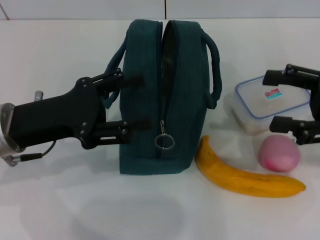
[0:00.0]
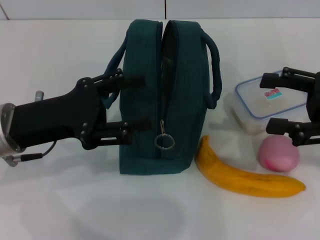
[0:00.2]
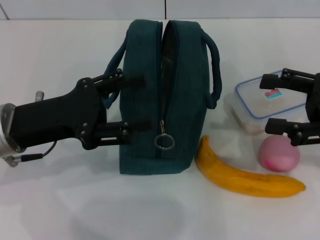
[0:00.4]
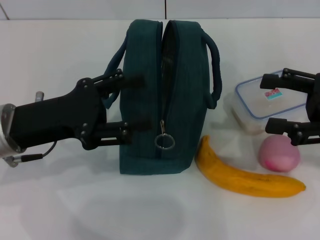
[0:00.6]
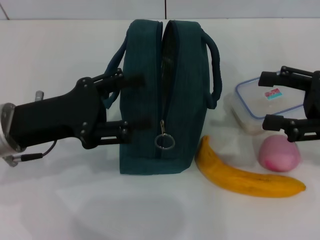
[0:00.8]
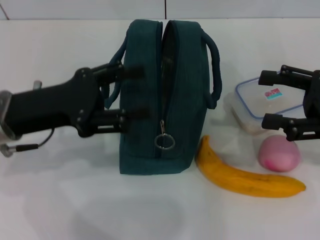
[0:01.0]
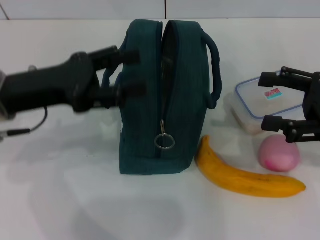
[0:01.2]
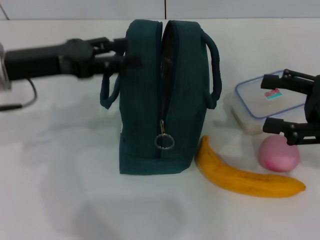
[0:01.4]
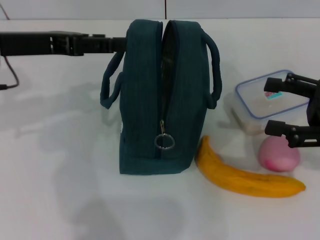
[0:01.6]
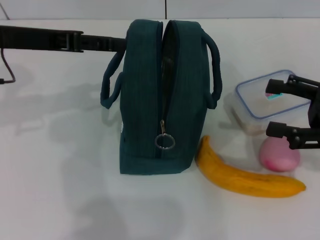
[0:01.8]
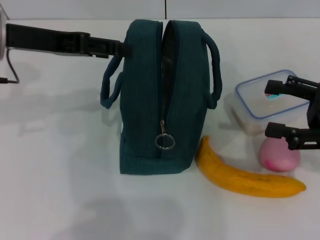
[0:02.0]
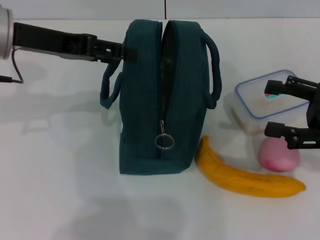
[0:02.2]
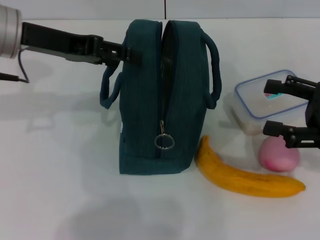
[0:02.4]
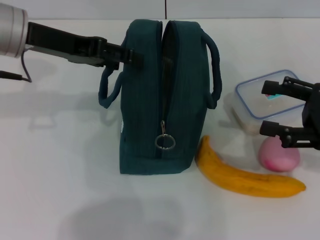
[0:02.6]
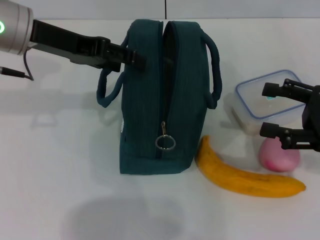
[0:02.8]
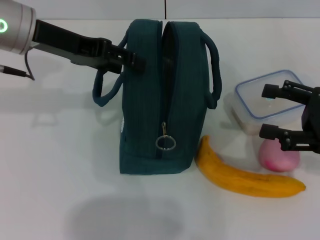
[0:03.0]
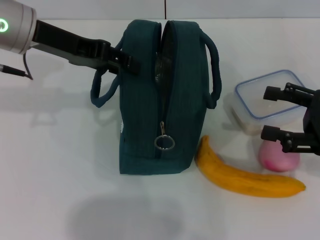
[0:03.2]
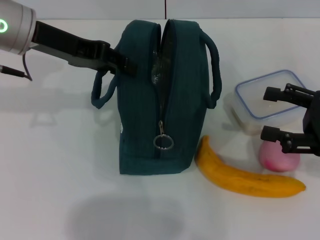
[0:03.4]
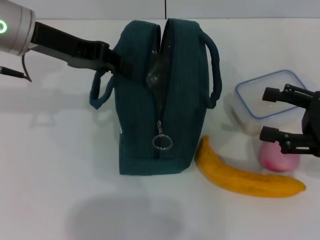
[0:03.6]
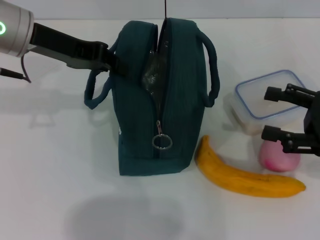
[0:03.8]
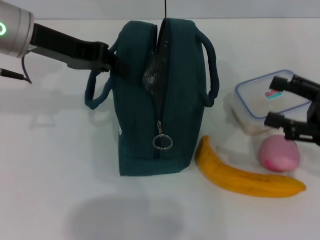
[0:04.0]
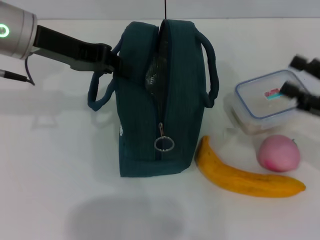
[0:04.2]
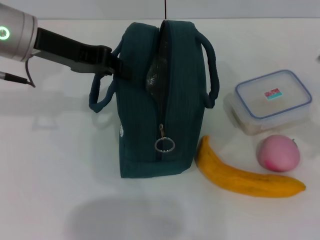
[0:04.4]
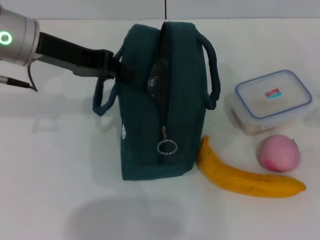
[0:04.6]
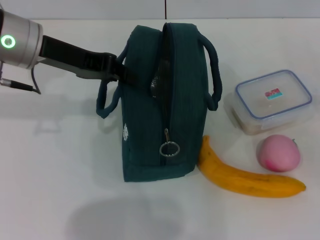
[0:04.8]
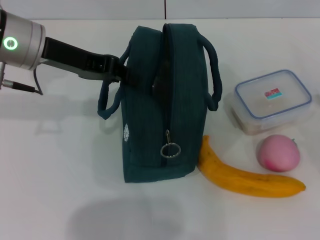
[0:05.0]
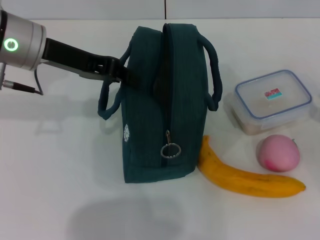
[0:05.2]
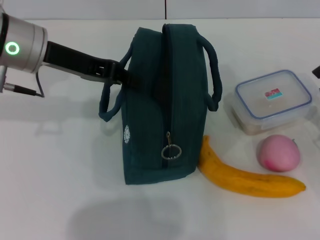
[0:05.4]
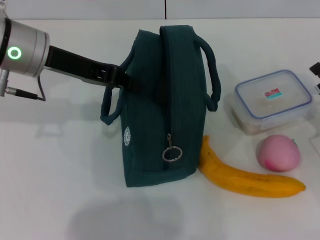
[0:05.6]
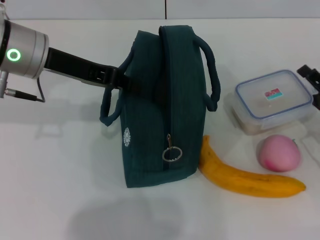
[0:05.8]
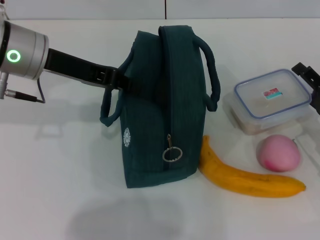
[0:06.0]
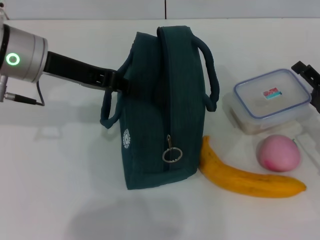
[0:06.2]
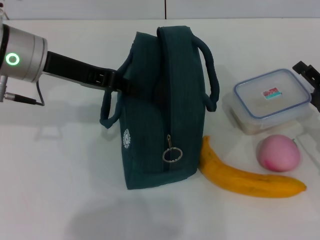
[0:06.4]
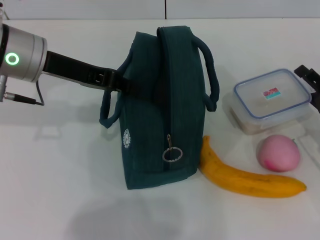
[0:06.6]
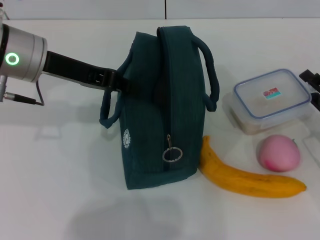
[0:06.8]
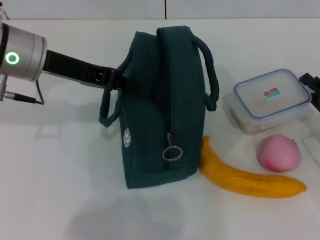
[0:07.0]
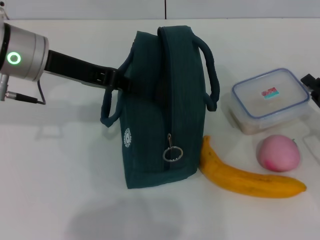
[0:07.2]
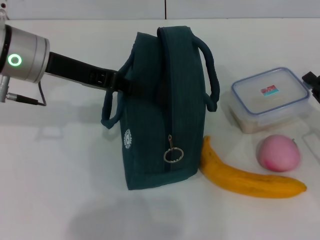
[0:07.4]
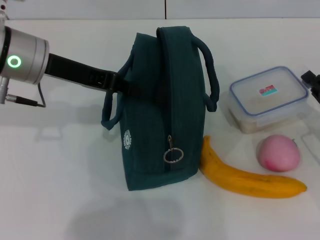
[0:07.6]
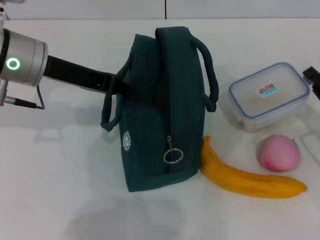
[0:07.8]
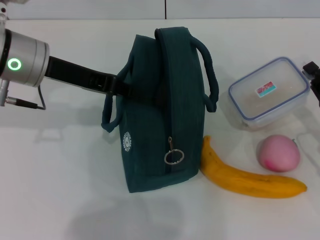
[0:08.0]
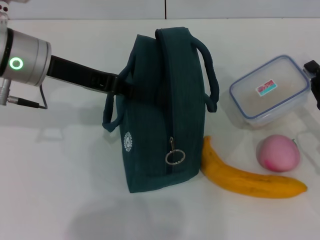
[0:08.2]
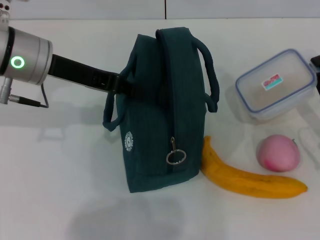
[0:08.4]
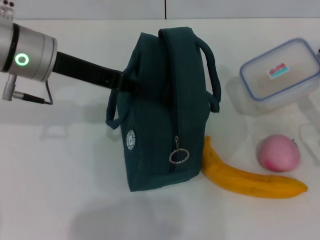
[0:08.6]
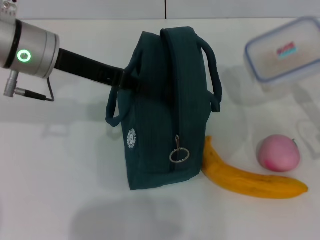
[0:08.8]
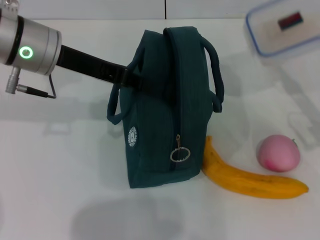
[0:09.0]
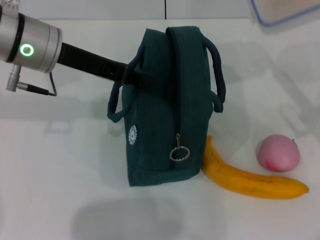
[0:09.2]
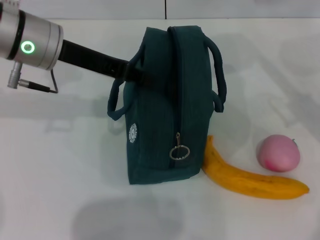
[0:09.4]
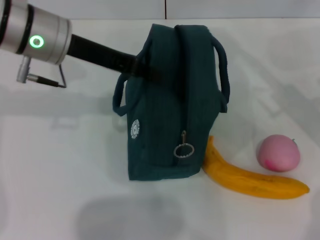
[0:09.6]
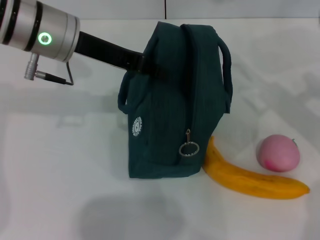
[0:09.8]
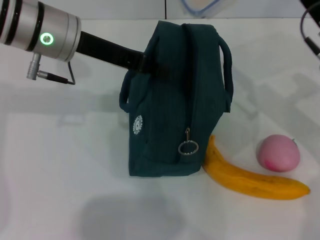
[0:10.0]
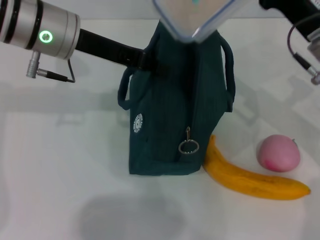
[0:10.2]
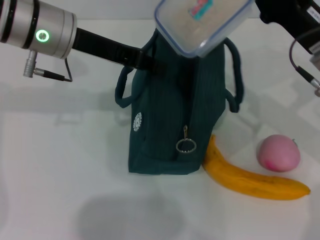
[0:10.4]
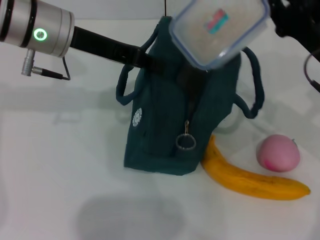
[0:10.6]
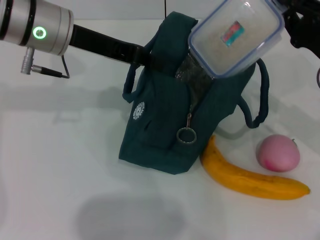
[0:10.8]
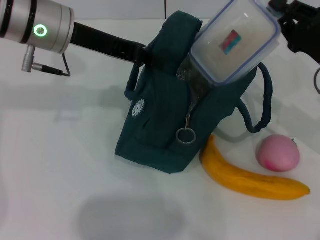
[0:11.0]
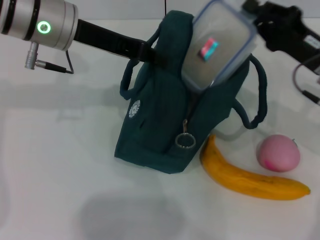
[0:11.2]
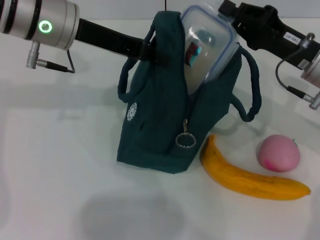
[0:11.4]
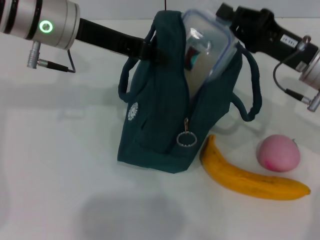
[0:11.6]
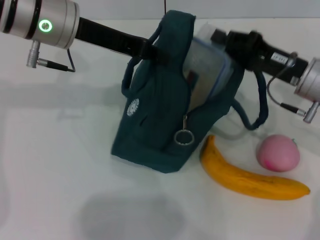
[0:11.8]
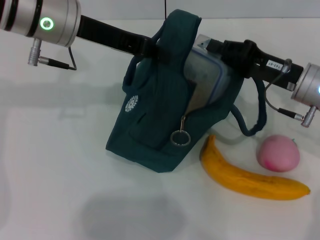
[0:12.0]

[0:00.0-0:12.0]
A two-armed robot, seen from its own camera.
Step, 0:00.0 to 0:04.4: Hold the lunch bag with your left hand.
Step, 0:04.6 to 0:07.4: Pick up the lunch box with your right hand.
0:00.0 to 0:01.6: The left gripper is displaced upward and forward by some 10 cm.
0:01.6 to 0:03.0: The left gripper ends up roughly 5 cm from where it was.
0:03.0 to 0:04.4: The left gripper closes its fingers.
0:04.4 to 0:06.0: The right gripper shifts about 5 cm downward.
0:06.0 to 0:07.6: The right gripper closes.
0:07.6 to 0:09.0: The right gripper moves upward, approximately 5 cm.
0:09.0 to 0:10.4: The right gripper moves to the left, approximately 10 cm.

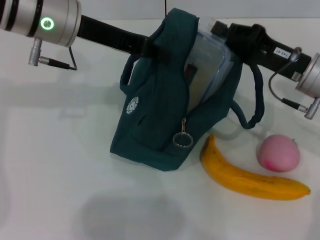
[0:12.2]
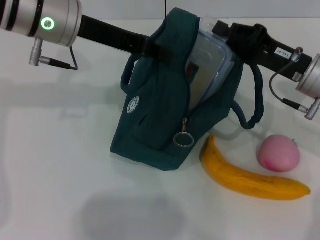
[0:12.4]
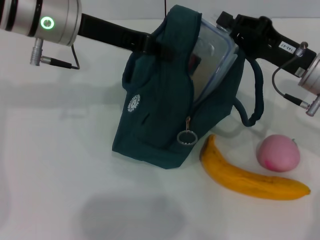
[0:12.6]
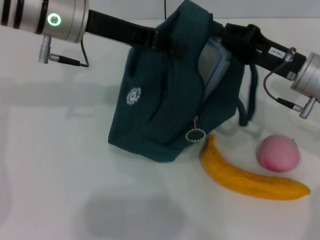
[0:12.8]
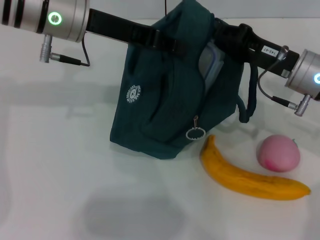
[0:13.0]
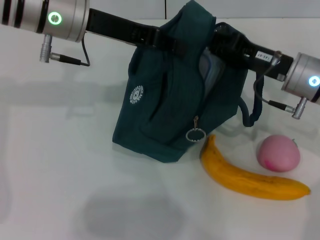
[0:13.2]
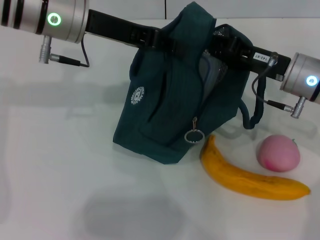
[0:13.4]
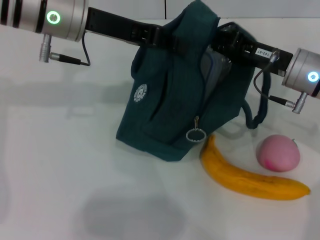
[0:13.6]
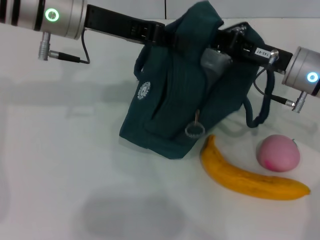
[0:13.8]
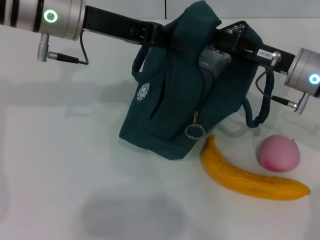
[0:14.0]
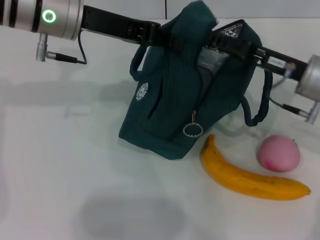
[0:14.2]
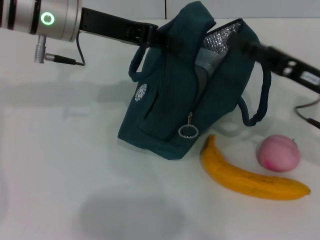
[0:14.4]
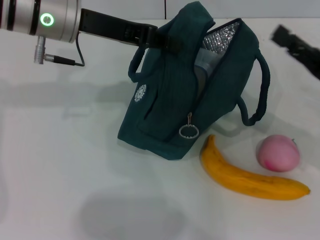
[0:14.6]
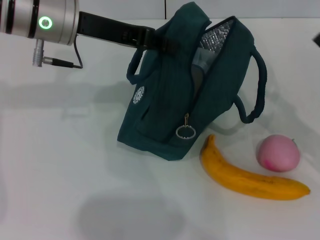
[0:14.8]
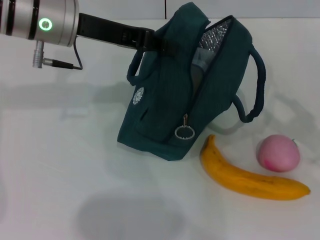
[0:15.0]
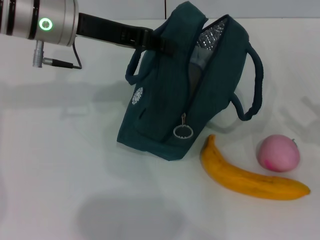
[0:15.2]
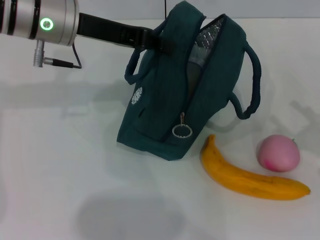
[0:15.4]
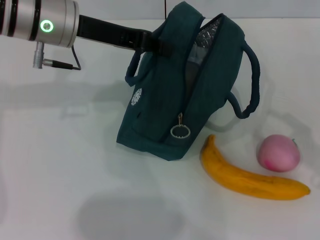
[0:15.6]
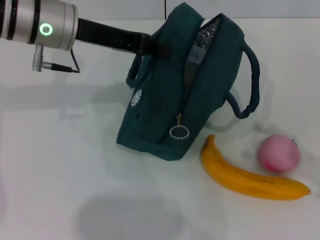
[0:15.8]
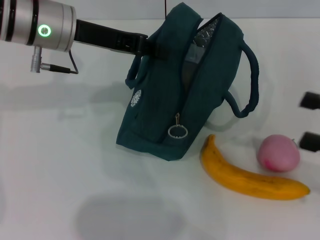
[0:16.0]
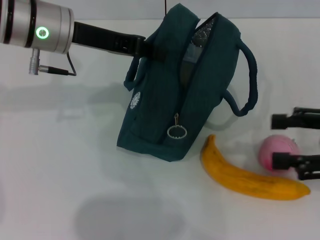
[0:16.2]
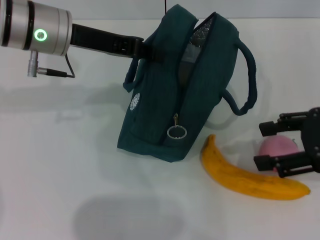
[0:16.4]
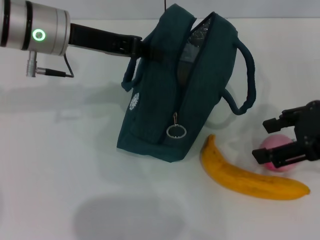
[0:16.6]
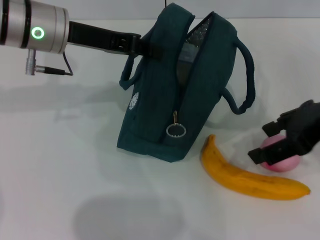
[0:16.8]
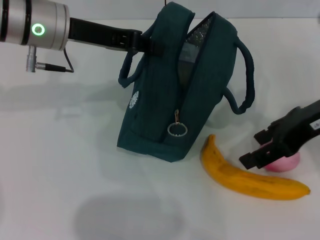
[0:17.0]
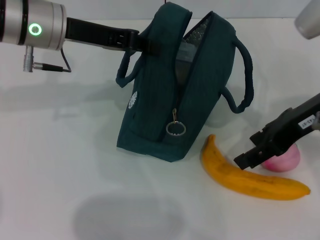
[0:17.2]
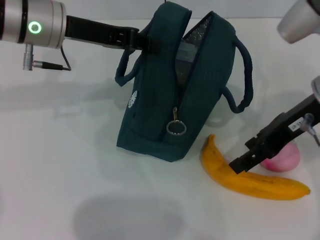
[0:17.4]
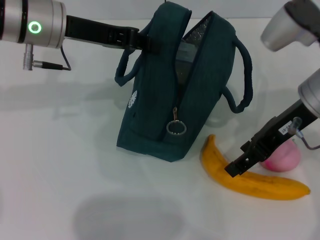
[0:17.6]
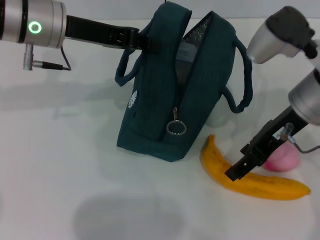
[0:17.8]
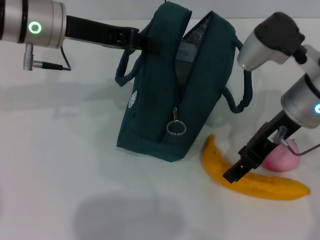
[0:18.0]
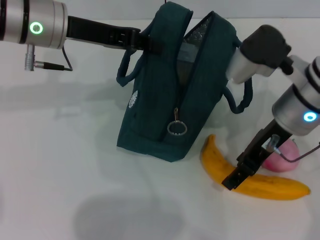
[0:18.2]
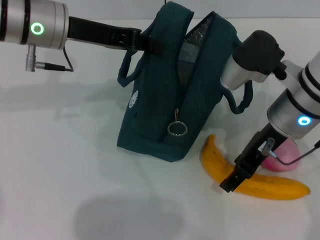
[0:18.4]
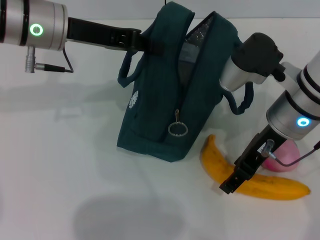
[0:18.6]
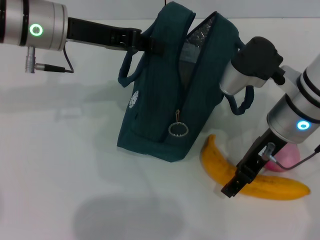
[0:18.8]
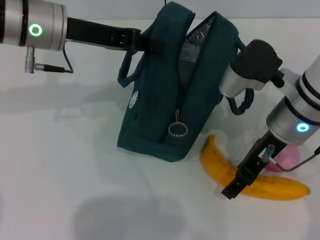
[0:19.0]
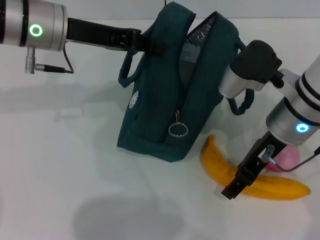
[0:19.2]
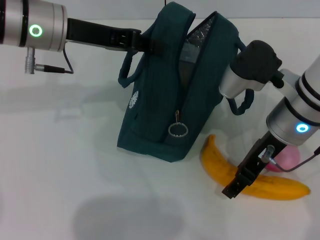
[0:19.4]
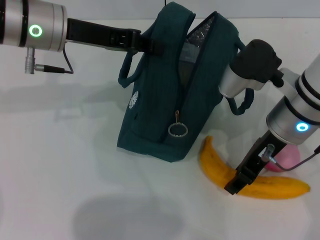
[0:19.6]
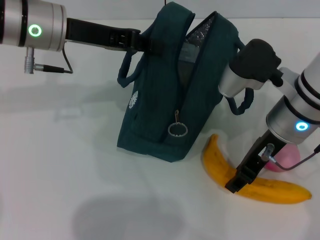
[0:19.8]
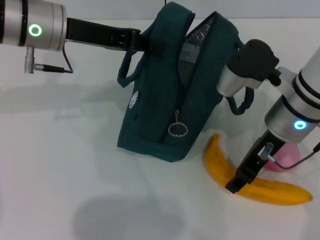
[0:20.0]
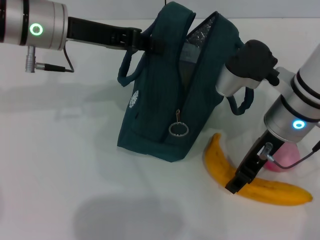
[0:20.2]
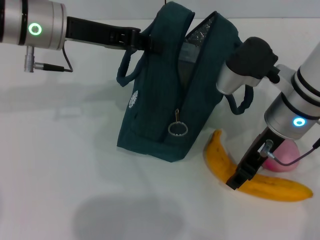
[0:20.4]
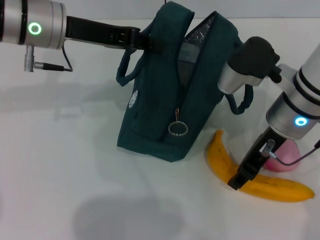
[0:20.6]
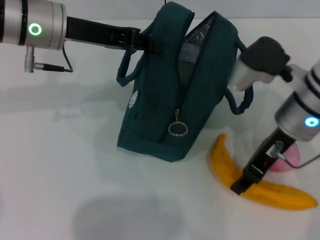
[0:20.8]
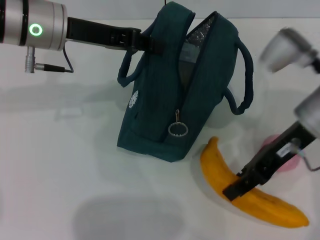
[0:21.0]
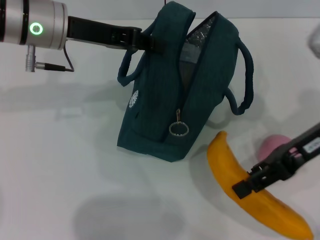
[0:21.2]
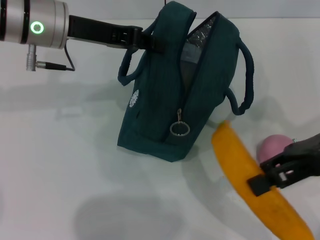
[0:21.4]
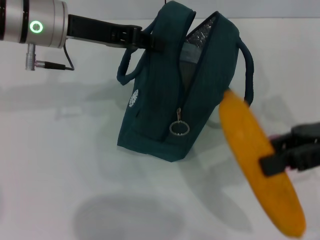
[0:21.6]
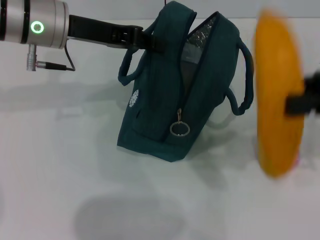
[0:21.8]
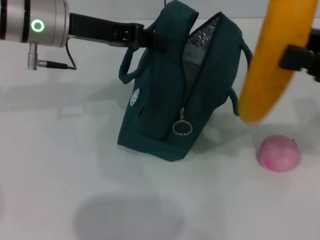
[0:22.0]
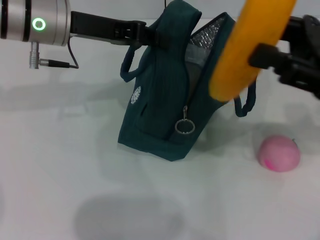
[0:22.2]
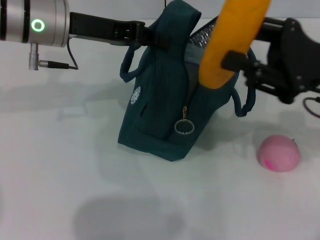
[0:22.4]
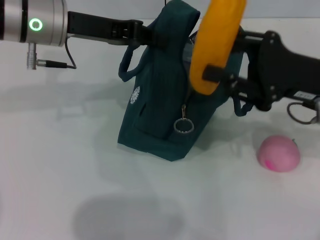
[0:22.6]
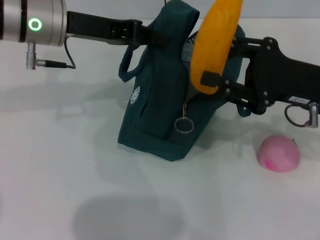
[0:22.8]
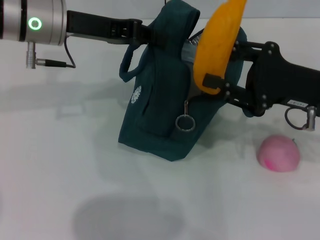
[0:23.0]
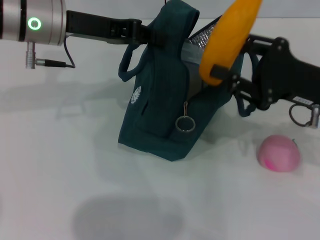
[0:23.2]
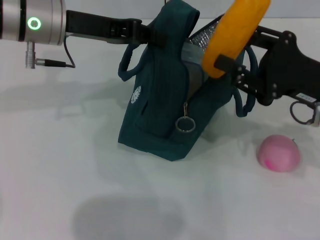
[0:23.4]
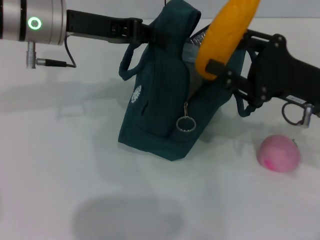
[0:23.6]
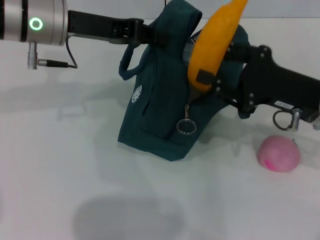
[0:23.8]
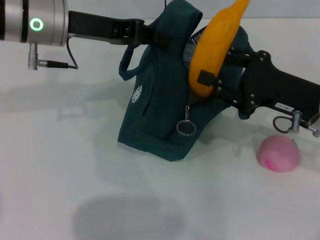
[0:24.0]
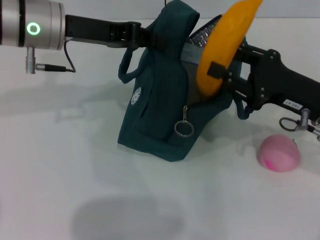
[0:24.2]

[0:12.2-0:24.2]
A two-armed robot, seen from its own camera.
Step, 0:12.2 to 0:14.4: Place the lunch box into the lunch bag with your right hand.
Step, 0:14.6 to 0:20.4: Take the banana with your right hand.
0:13.8 to 0:15.2: The right gripper goes roughly 20 cm to the right and backward, and opens up.
0:15.2 to 0:16.6: The right gripper goes approximately 20 cm upward and to the left.
0:16.6 to 0:18.2: The right gripper travels to the left, forward and downward by some 15 cm.
0:18.2 to 0:19.8: The grippers move only a little.
0:19.8 to 0:21.2: The right gripper goes about 10 cm to the right.
0:22.6 to 0:24.2: The grippers stay close to where they were, moving slightly.
